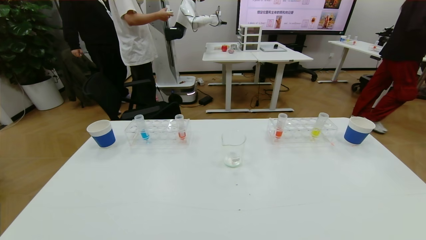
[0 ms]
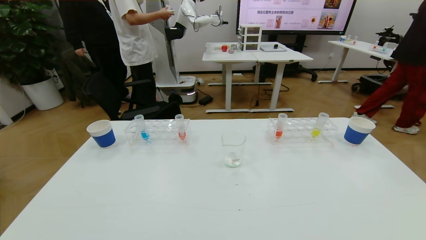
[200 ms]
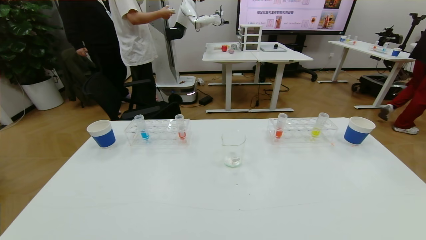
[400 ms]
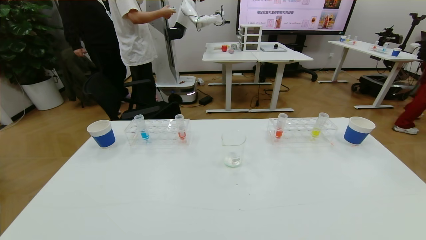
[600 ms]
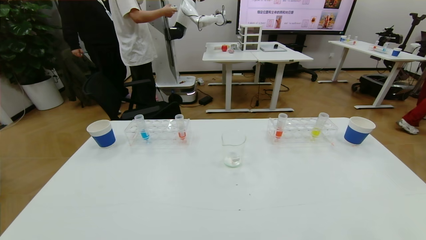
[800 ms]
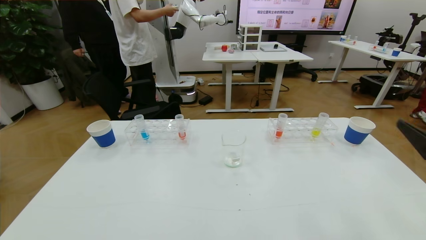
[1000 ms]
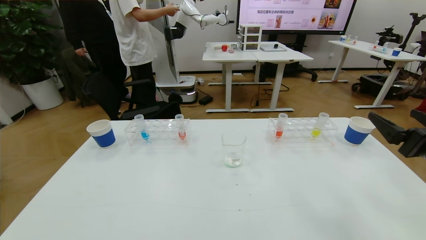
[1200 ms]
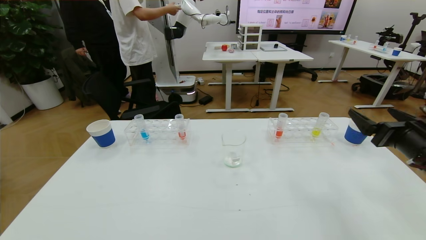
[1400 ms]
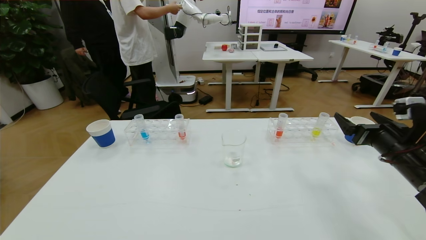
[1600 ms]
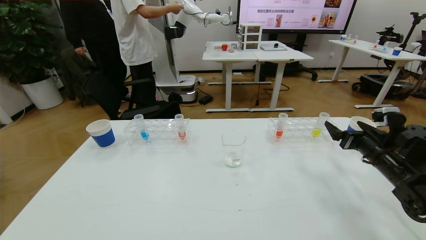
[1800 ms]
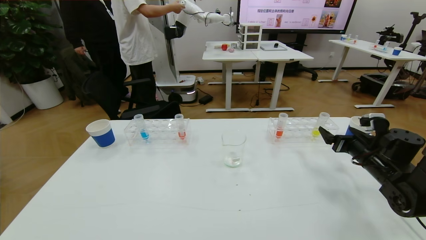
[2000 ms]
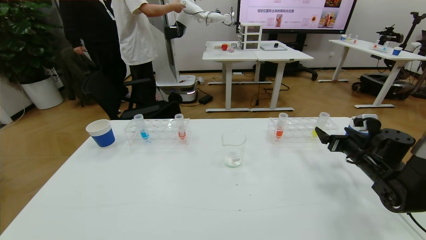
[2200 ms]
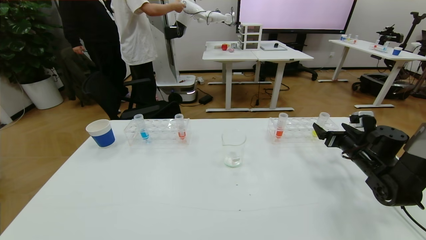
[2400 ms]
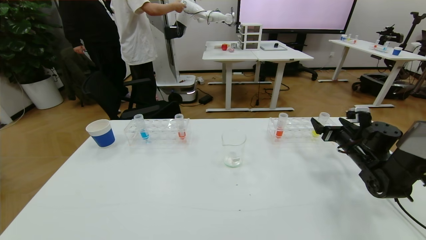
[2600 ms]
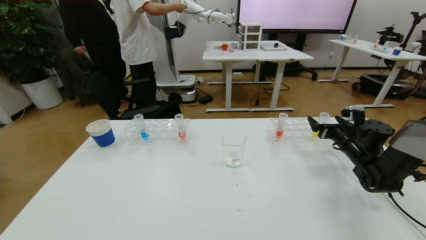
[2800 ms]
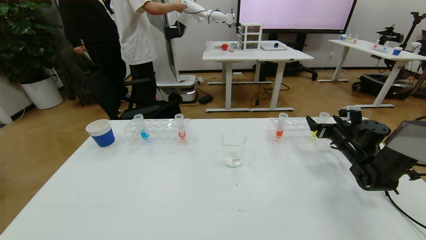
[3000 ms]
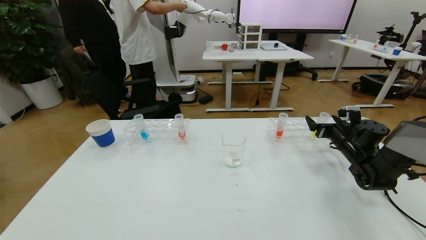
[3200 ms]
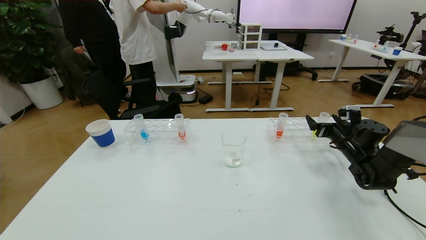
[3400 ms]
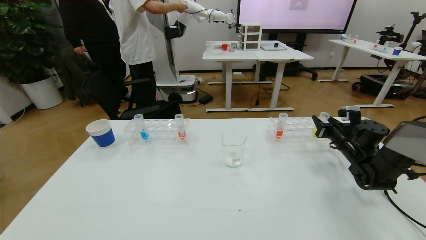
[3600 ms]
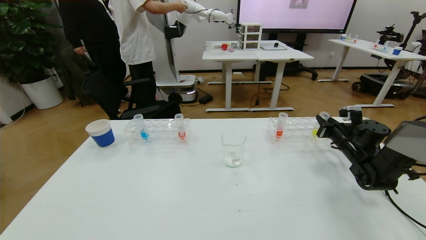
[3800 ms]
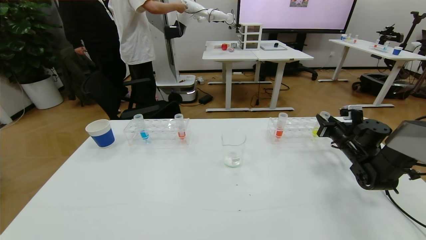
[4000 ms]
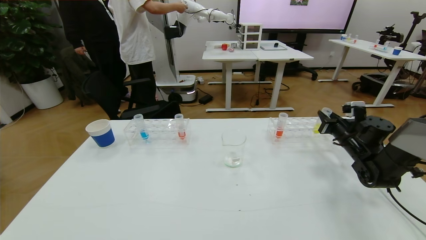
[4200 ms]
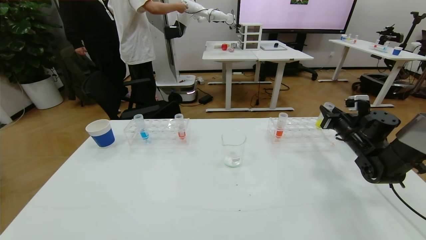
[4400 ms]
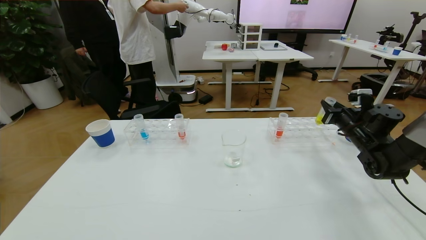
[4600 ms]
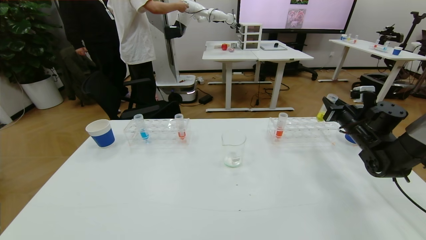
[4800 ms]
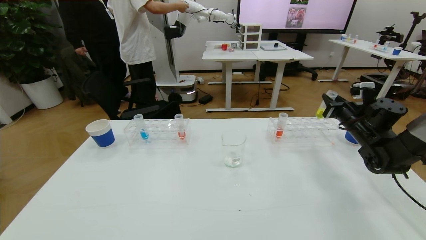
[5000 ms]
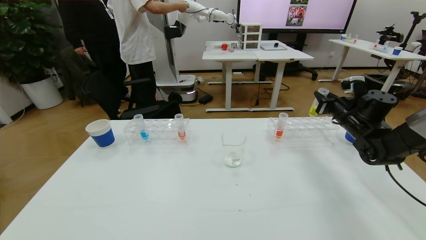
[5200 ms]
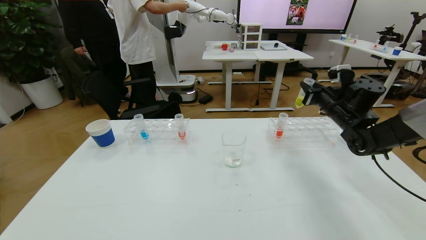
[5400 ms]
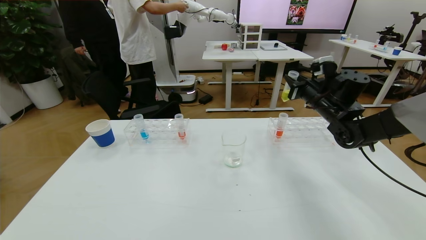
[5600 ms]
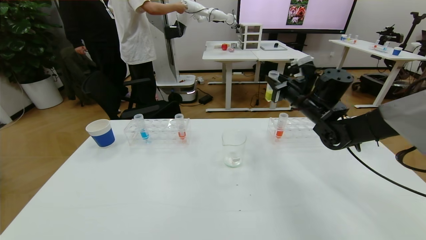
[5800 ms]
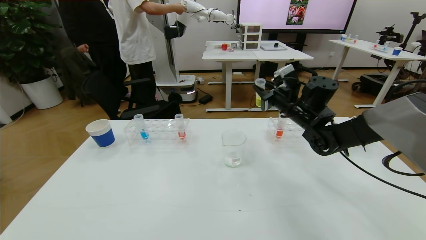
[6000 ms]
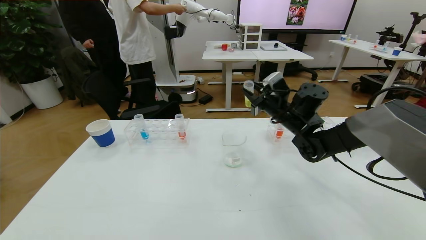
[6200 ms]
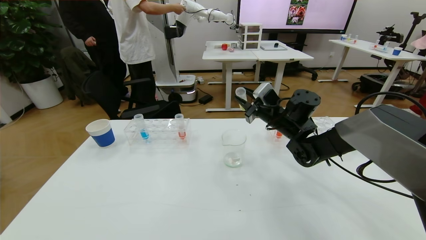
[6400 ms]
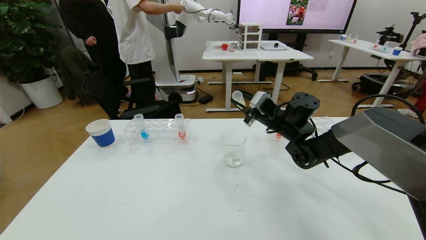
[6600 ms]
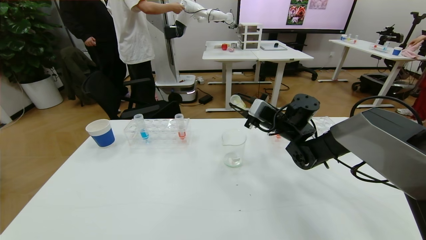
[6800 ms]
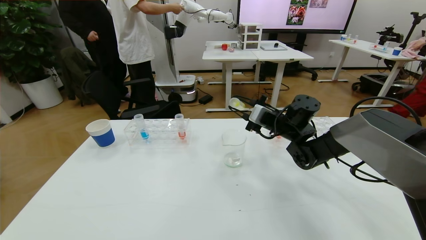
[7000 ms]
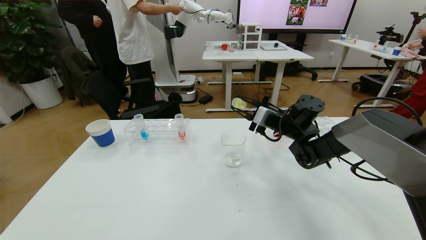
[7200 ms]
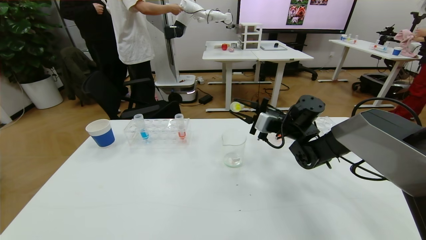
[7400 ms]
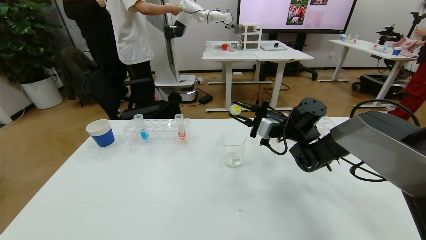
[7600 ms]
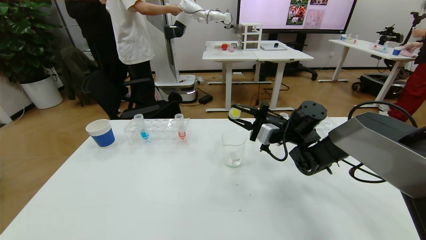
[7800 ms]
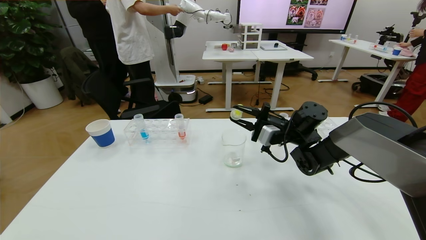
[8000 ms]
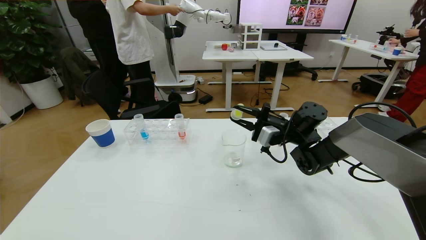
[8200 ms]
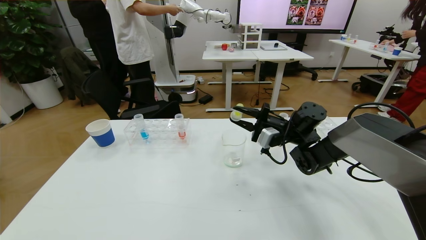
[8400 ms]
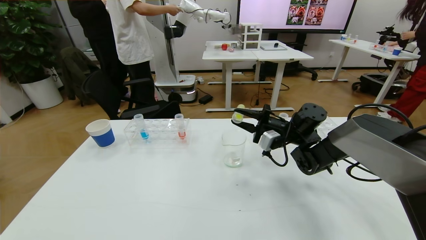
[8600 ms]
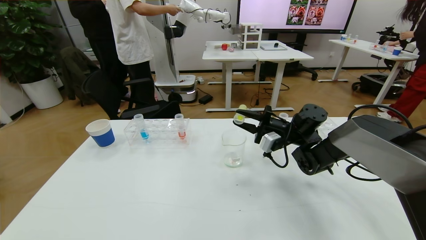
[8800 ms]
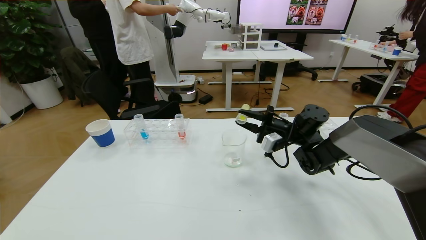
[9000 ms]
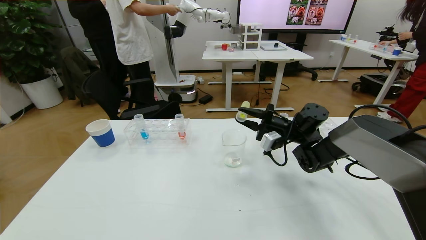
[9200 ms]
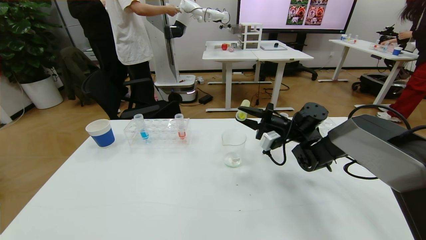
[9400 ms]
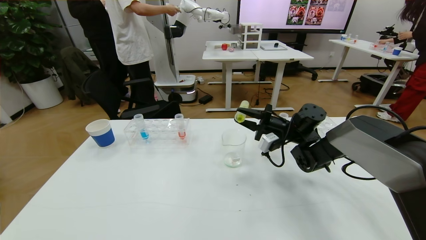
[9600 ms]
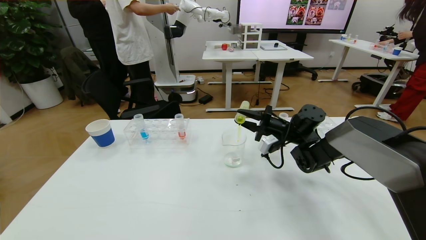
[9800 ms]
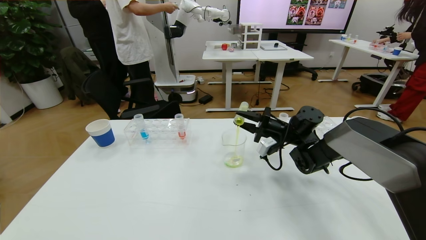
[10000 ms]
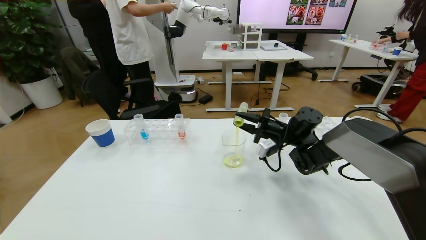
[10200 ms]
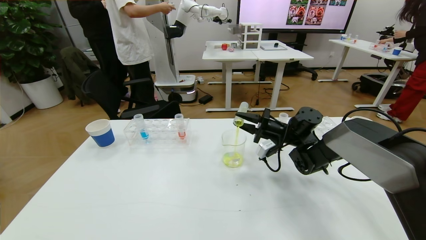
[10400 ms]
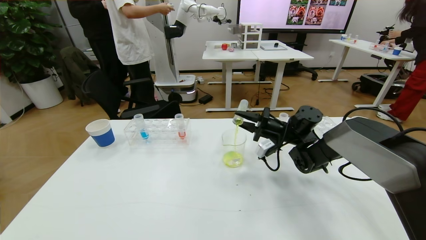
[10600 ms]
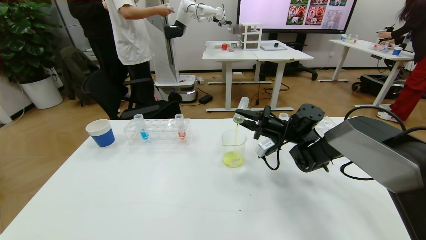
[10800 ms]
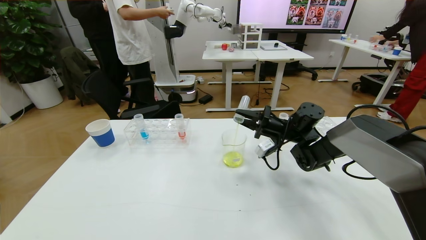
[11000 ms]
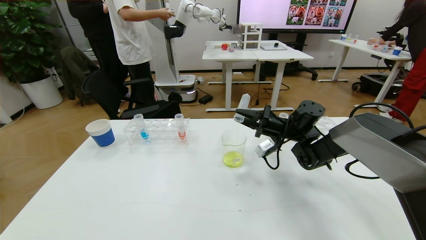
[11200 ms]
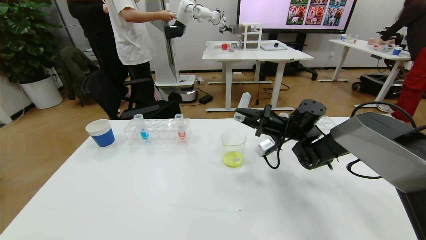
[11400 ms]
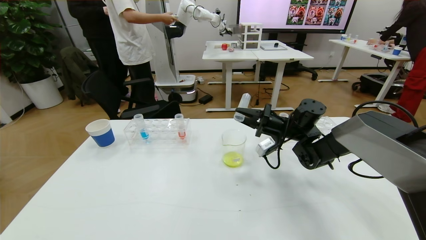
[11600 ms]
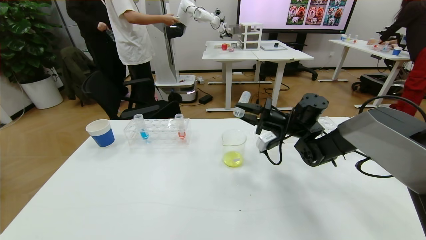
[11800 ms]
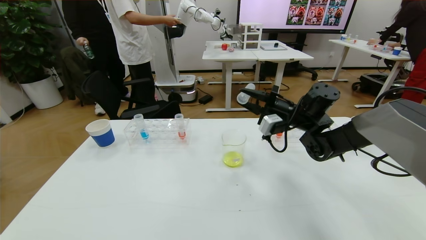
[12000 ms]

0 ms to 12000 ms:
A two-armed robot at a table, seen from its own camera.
Task of the whole recording: pick up the test tube with yellow pigment and the test tube with blue pigment by grippers and pour them into the beaker.
0 ms to 1600 ms: The right gripper goes about 30 cm forward.
1600 ms to 3000 ms: The right gripper heads forward and downward, covering approximately 15 cm.
3000 ms to 4400 ms: The right gripper closes.
4400 ms to 6000 ms: The right gripper shifts about 20 cm to the left and upward.
6000 ms to 7600 ms: The right gripper ends up some 5 cm from where it was.
7600 ms to 9000 ms: The grippers move only a little.
9000 ms to 10400 ms: The grippers stay close to where they were, moving slightly.
10400 ms to 12000 ms: The right gripper heads upward, covering roughly 10 cm.

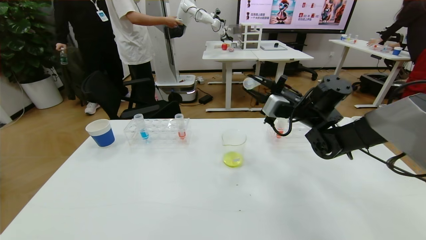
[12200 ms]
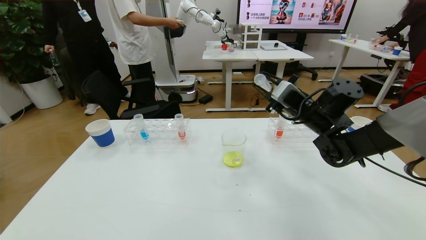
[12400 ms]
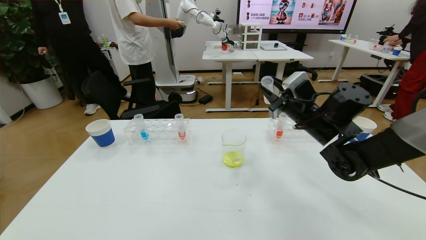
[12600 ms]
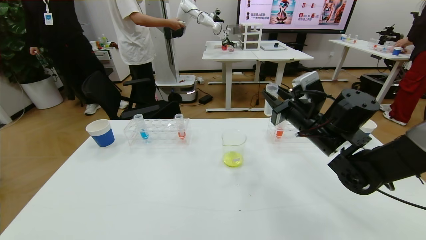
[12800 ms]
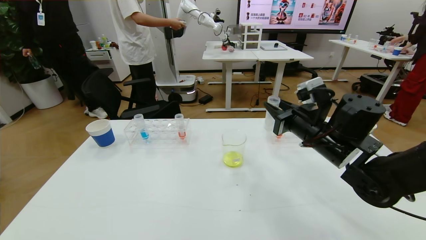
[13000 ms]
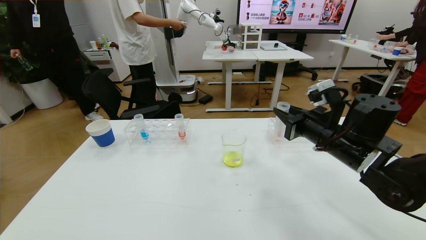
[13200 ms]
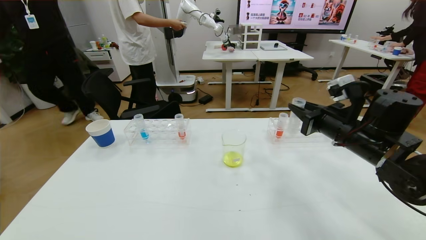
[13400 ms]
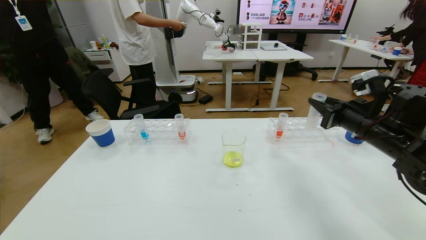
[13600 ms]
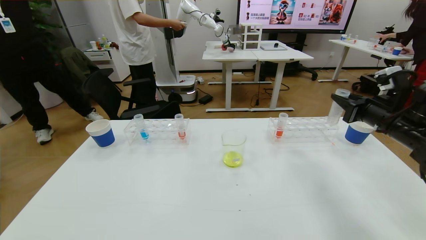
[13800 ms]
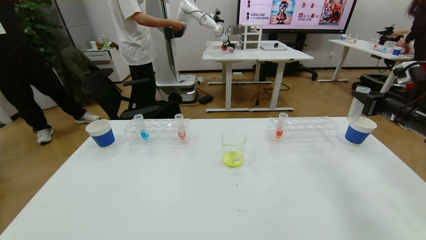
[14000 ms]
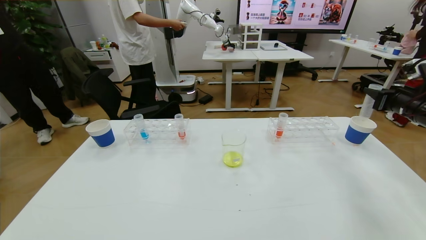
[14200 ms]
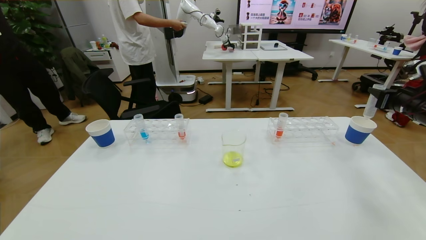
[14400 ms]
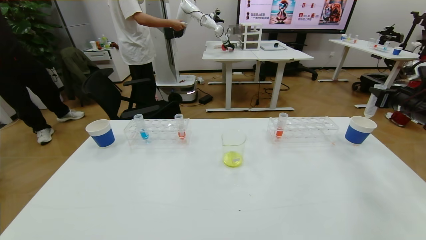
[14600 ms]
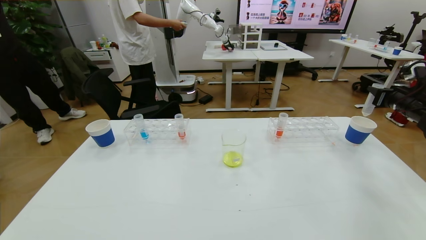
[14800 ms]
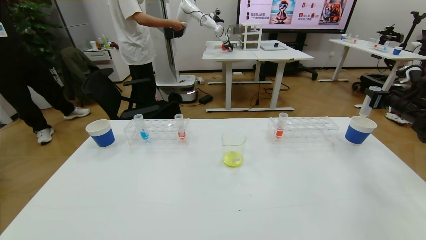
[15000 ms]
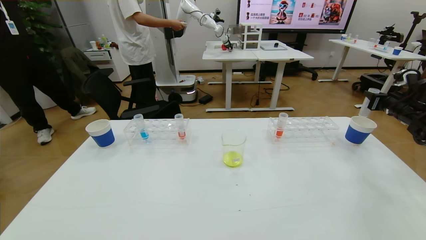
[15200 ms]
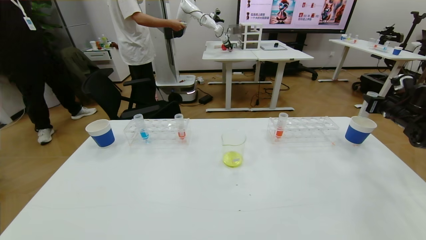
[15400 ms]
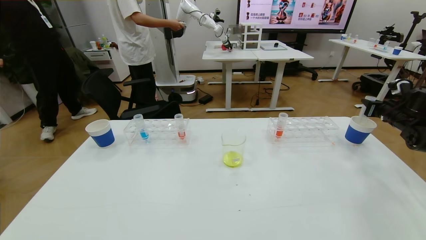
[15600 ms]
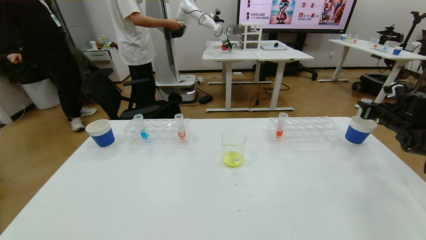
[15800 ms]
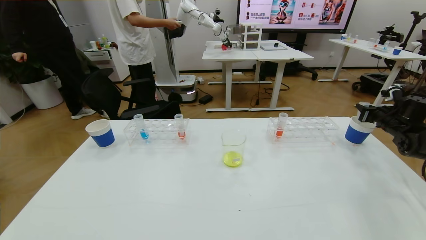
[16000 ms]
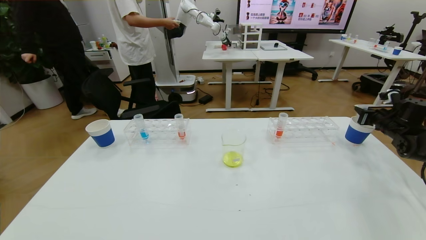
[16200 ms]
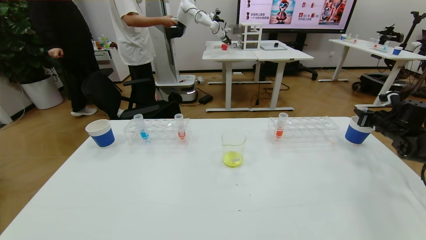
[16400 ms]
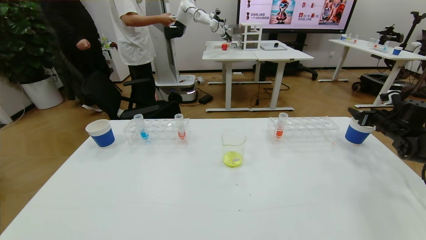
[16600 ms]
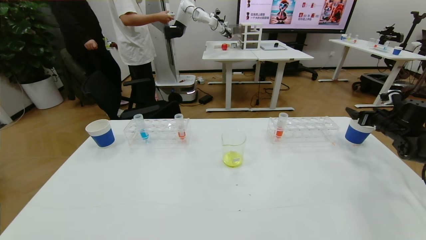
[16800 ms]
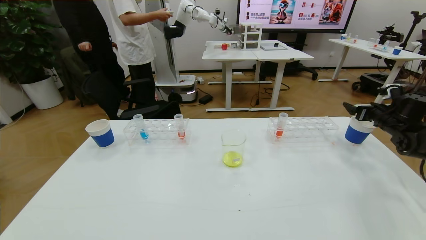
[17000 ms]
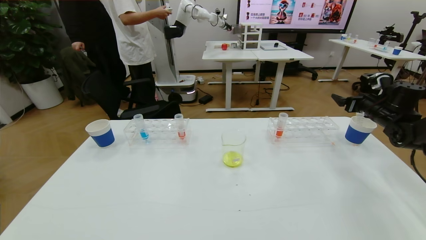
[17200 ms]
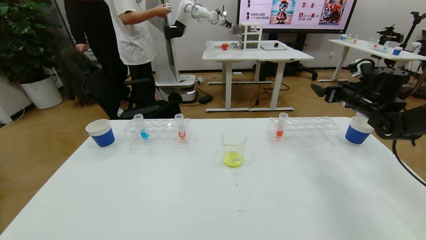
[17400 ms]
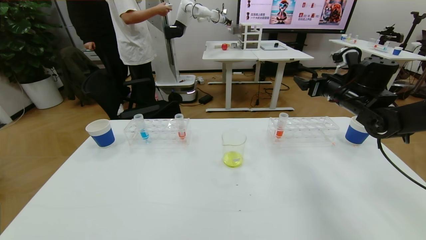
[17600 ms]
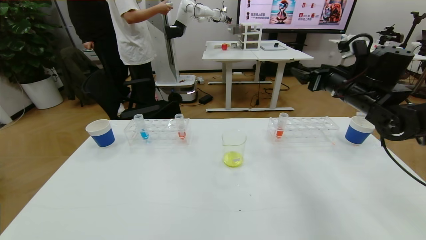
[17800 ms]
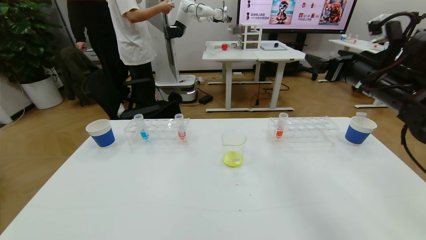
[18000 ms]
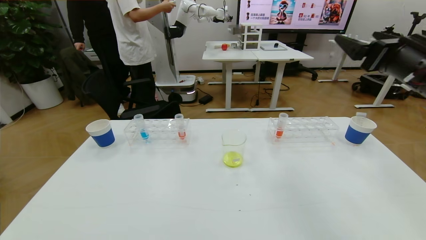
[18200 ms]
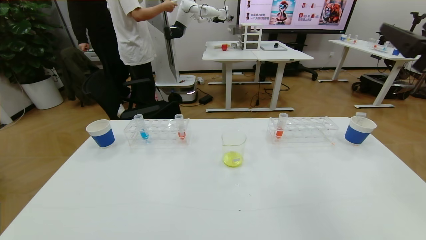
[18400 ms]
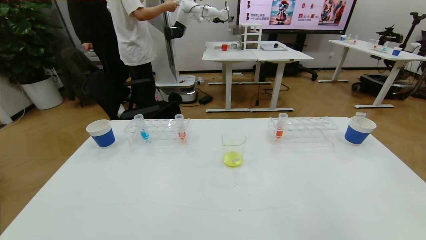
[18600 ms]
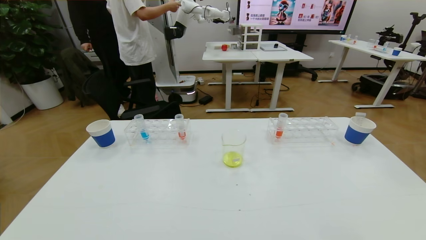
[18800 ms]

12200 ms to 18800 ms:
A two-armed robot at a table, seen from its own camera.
Task of the whole recording: pick up the test tube with yellow pigment and the test tube with blue pigment by grippers and pour them into the beaker.
12200 ms to 13800 ms: The right gripper heads to the right and backward, covering approximately 20 cm.
13800 ms to 15400 ms: The right gripper moves to the right and forward, some 20 cm.
15400 ms to 17200 ms: The right gripper moves to the left, roughly 5 cm, and opens up.
17200 ms to 18800 ms: The right gripper heads backward and upward, covering about 40 cm.
